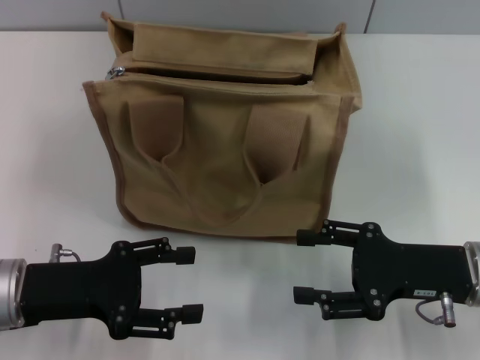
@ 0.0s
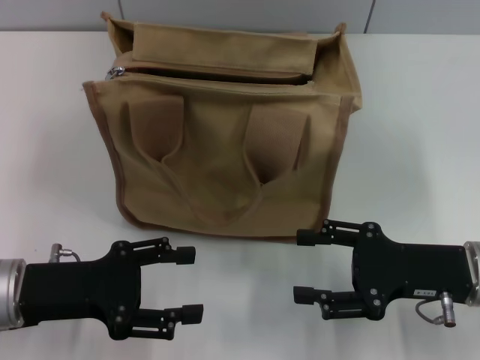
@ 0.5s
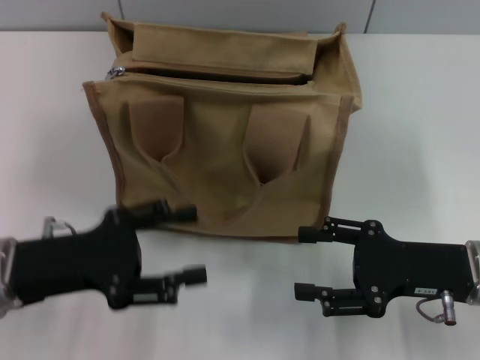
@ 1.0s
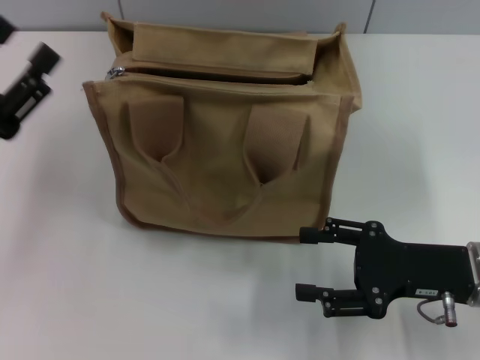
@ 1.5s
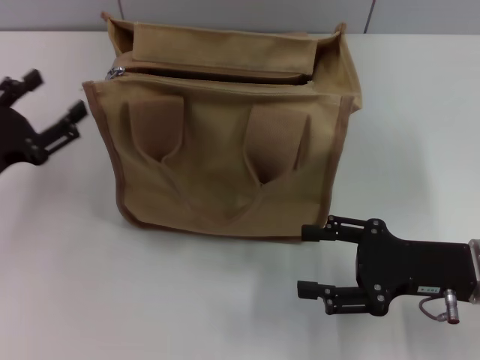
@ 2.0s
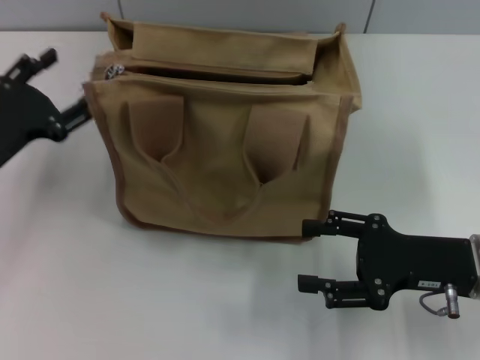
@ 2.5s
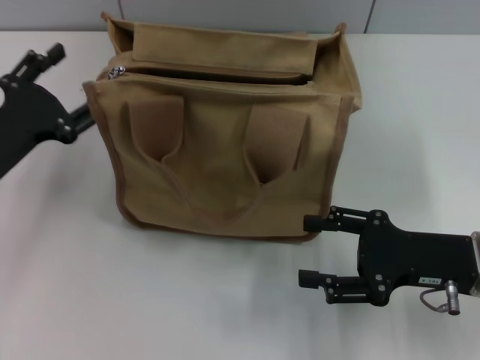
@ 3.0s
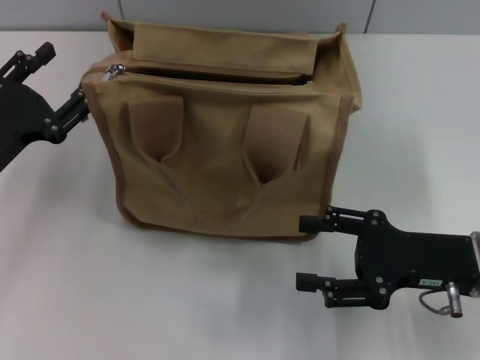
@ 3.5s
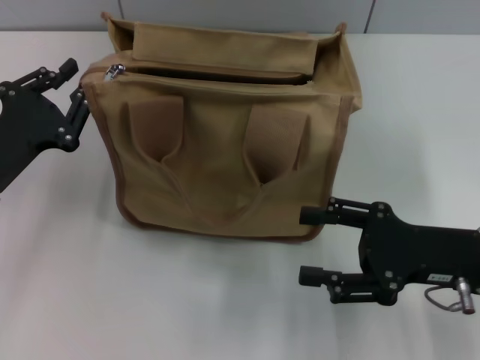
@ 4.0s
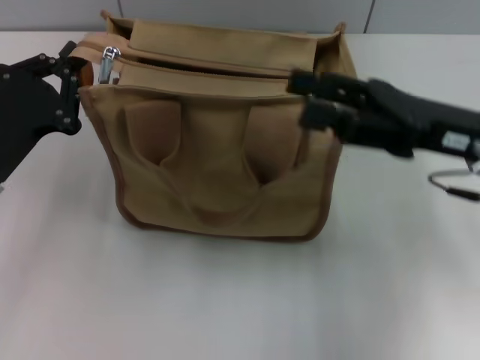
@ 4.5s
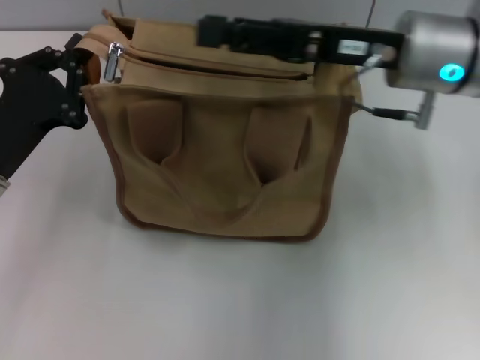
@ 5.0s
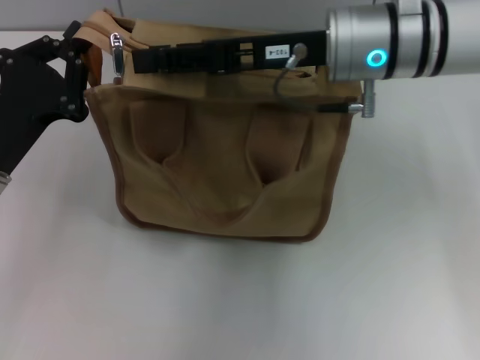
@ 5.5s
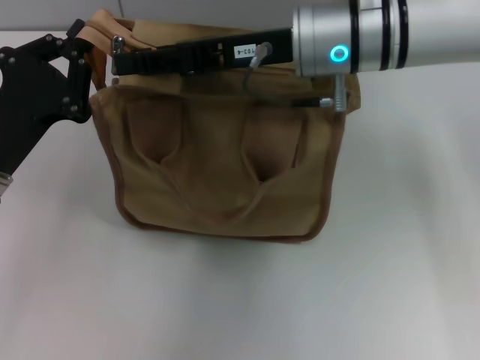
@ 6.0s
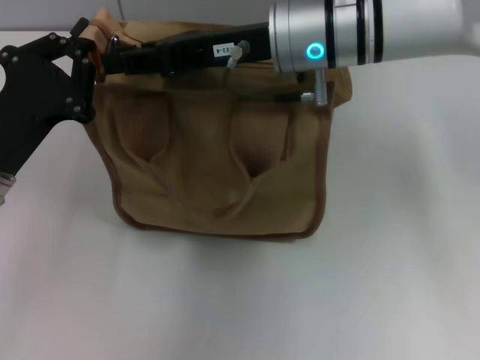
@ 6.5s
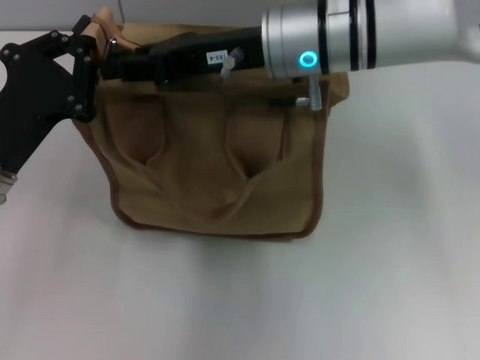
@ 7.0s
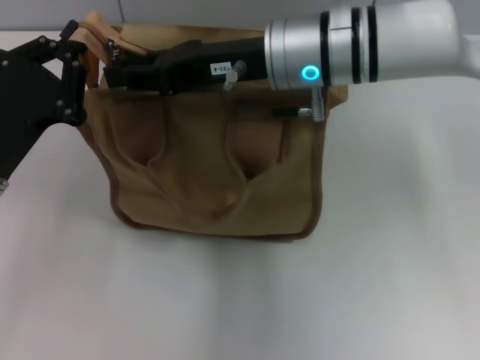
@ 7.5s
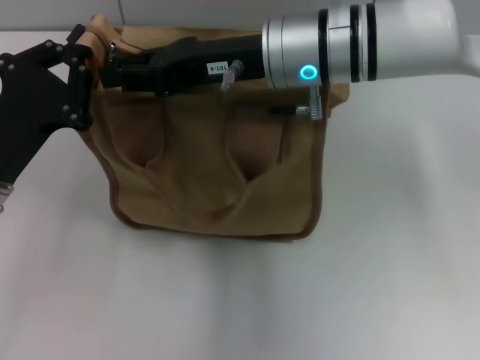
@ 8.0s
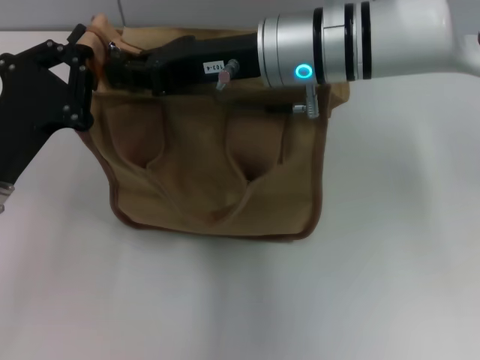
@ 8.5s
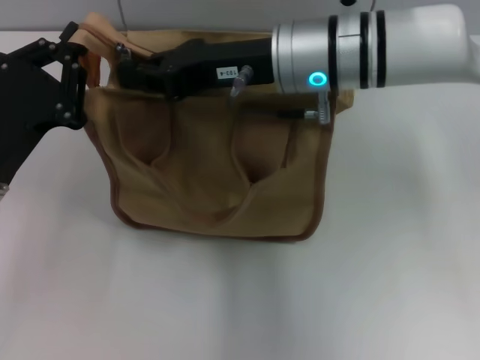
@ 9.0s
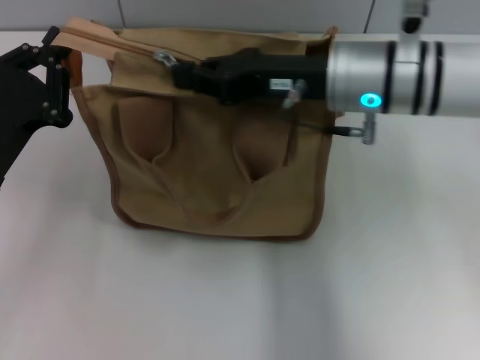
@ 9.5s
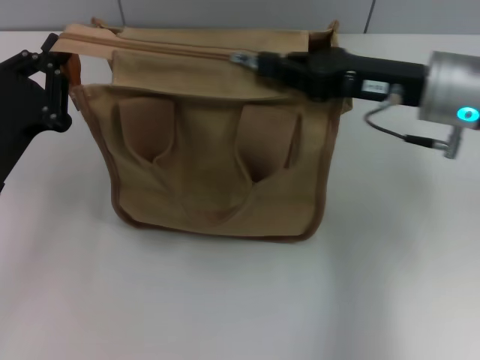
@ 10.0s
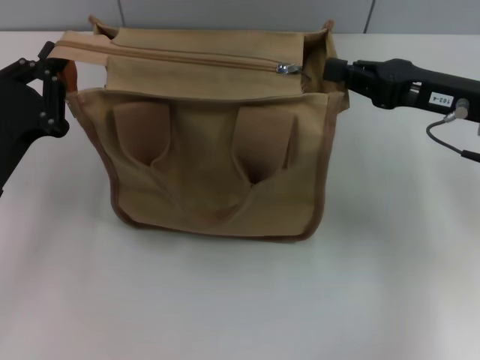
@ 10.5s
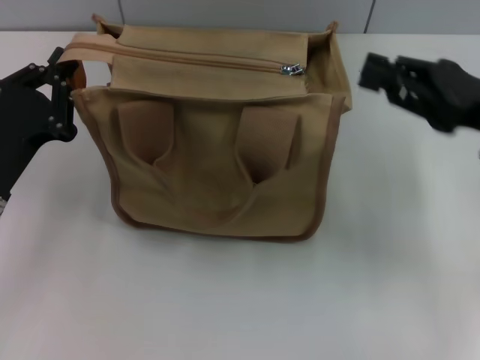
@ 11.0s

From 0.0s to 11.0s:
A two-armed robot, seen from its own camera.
Step, from 0.0s to 10.5s: Pull up the zipper with your right hand.
From 0.0s to 2.0s: The left gripper travels to the left by roughly 5 cm.
From 2.0s to 3.5s: The grippers stay close to where they were, moving slightly.
From 3.5s to 5.5s: The right gripper shifts roughly 25 cm forward, to the left and upward; the left gripper closes its fingers.
From 5.5s to 7.5s: The right gripper closes its fingers.
From 7.5s to 9.0s: The right gripper closes its fingers.
From 9.0s to 11.0s: The right gripper moves to the right, about 20 cm.

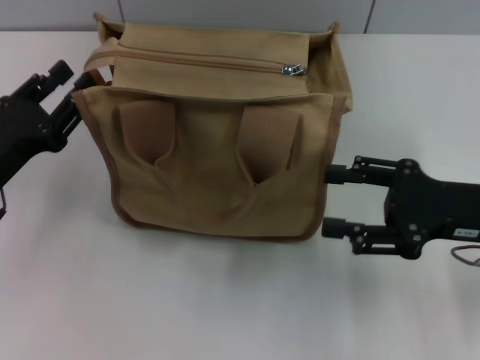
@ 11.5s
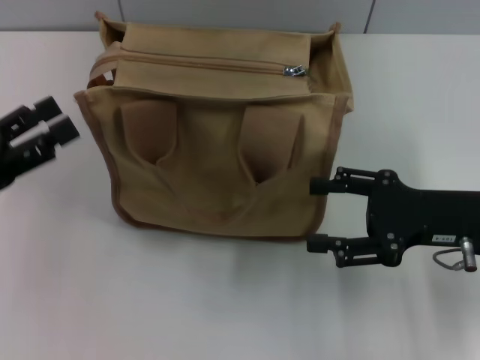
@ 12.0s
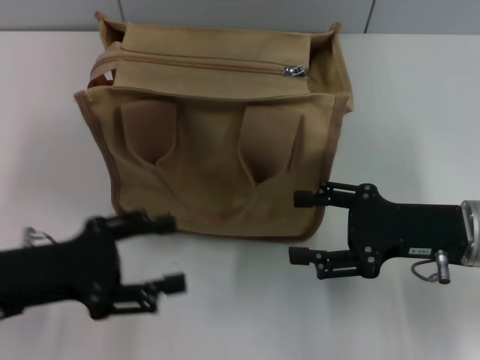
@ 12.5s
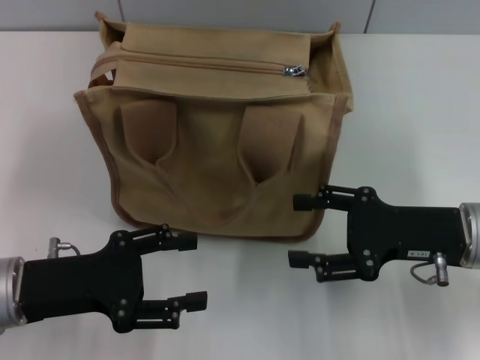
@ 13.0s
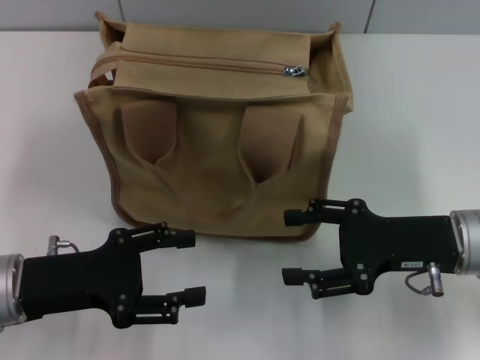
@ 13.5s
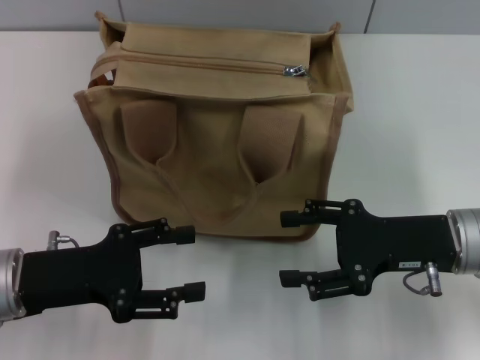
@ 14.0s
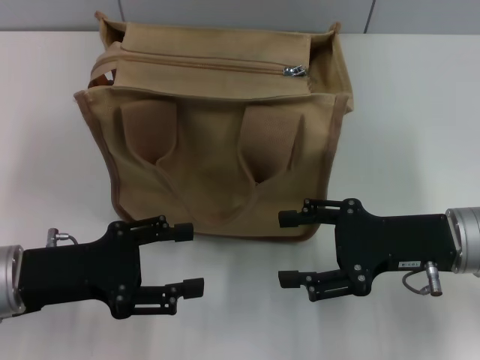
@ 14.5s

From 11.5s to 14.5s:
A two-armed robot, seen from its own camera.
From 11.5s to 13.0s: The left gripper moves roughly 5 cm, and opens. Meanwhile the right gripper opens its fingers.
From 13.0s to 14.5s: Both grippers stay about where they are.

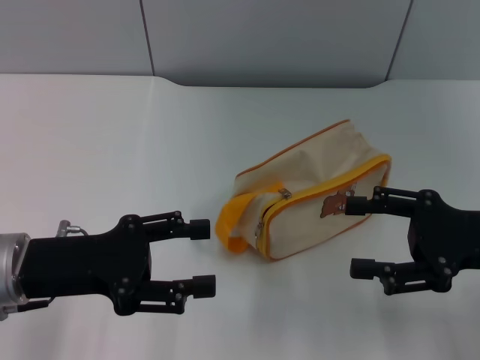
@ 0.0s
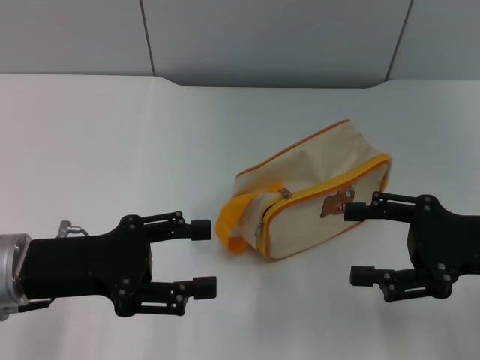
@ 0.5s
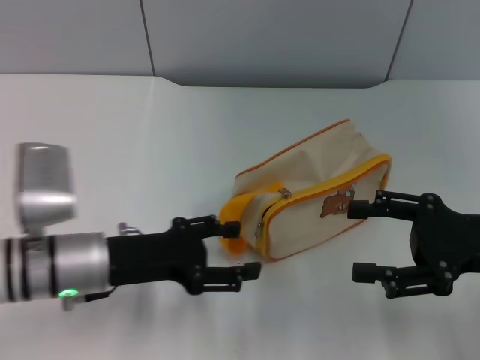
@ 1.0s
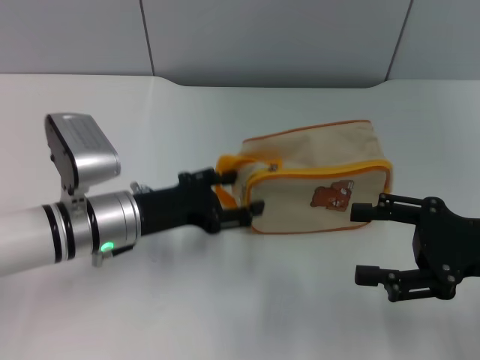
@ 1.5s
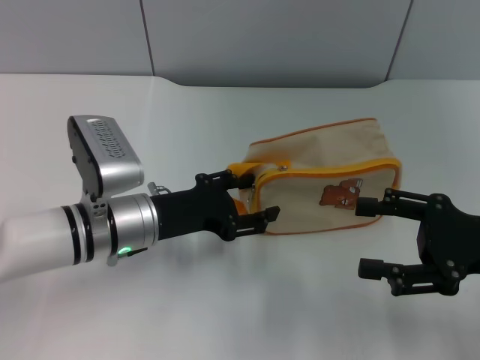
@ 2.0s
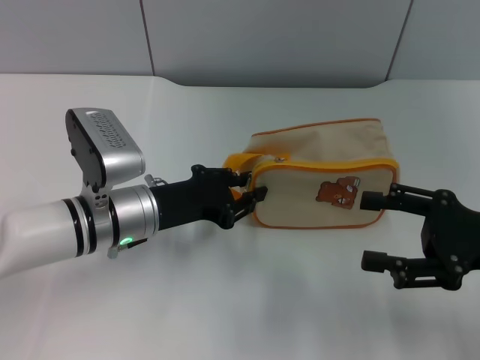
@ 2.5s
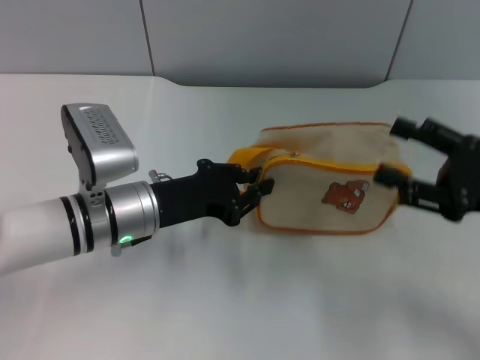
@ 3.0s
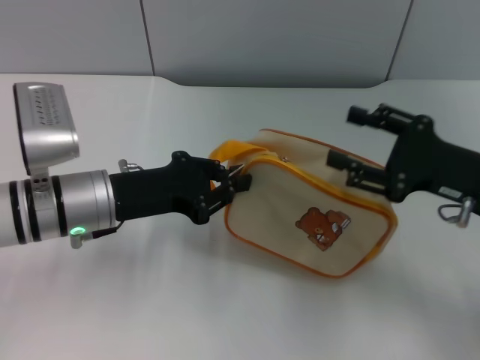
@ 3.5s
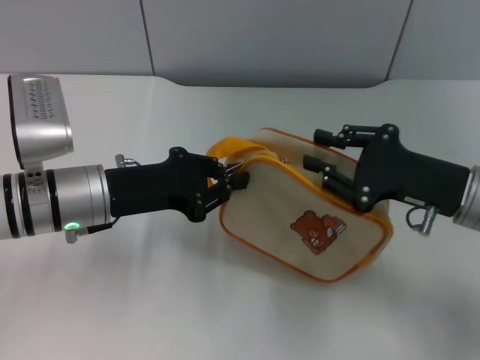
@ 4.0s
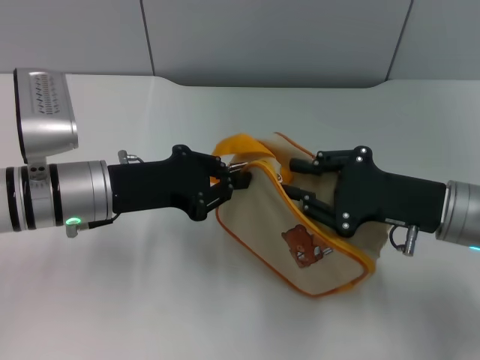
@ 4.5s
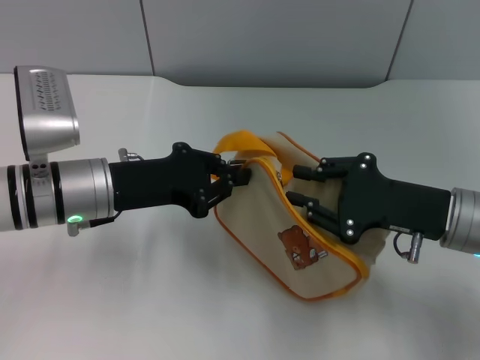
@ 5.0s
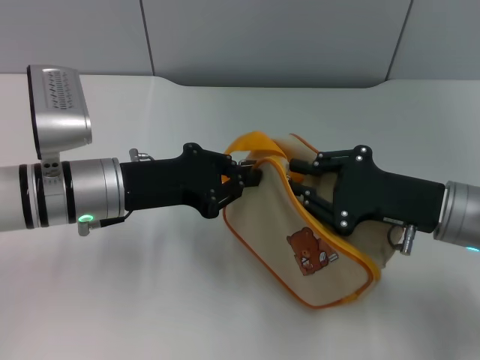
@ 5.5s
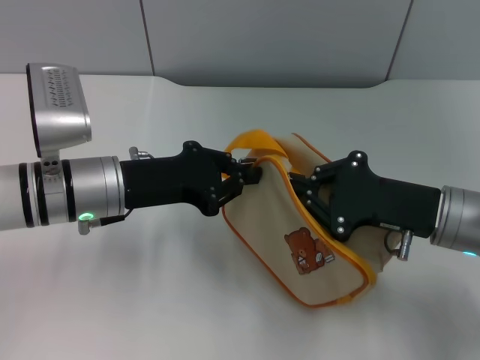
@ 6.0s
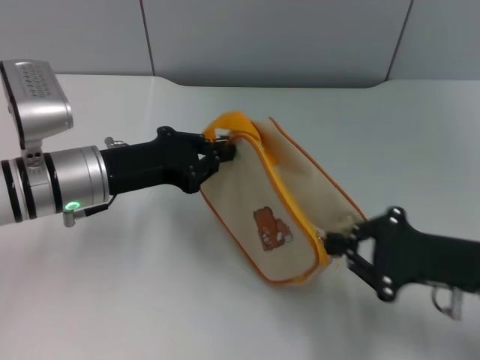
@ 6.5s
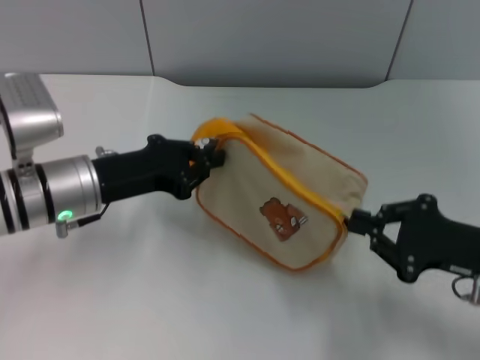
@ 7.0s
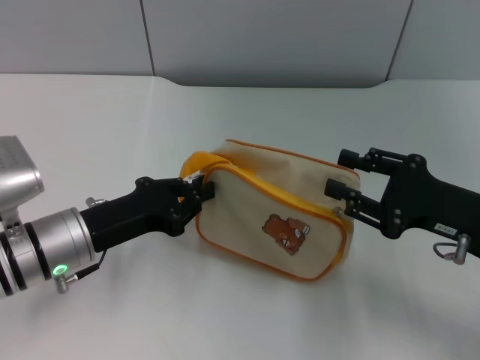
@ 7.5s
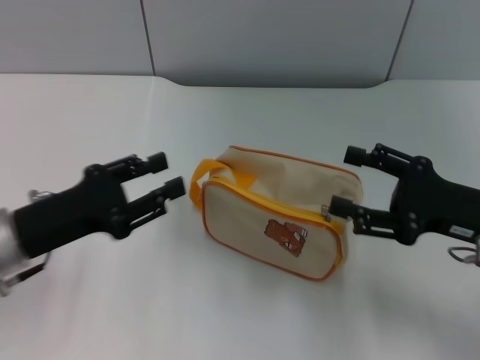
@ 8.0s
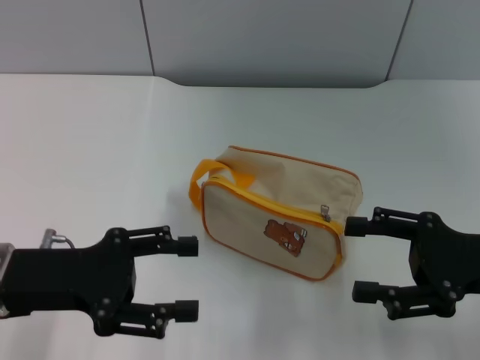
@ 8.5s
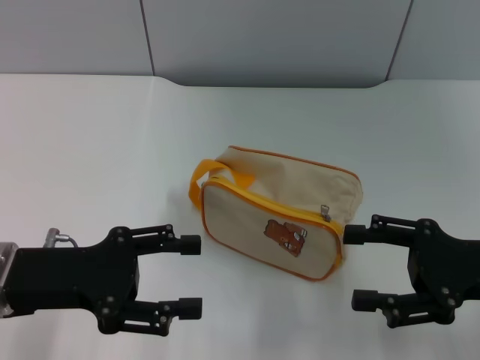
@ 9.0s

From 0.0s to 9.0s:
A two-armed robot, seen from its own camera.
Step, from 0.0s to 3.0s: Pick up the bag with left gripper.
Step, from 4.0s to 7.0s: Unzip the zipper of bag with right gripper.
From 0.0s to 2.0s: The left gripper heads to the right, forward and downward, covering some 10 cm.
From 2.0s to 4.5s: The left gripper ends up about 5 cm from where it was, and closes, while the right gripper goes roughly 5 cm to the left, and closes its fingers.
From 4.5s to 7.0s: The right gripper travels to the right and backward by approximately 5 cm, and closes its fingers.
From 7.0s to 9.0s: The right gripper opens its fingers. Meanwhile the left gripper heads backward, covering approximately 10 cm, and opens.
